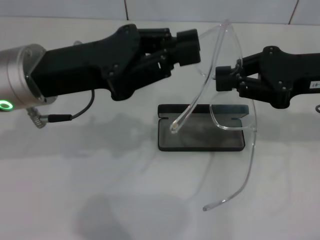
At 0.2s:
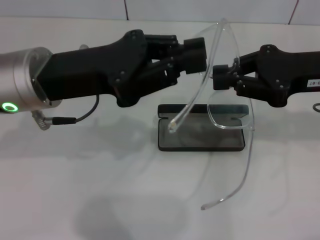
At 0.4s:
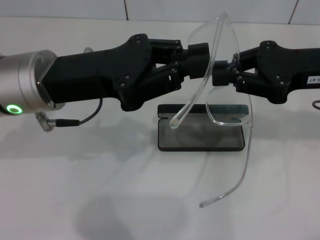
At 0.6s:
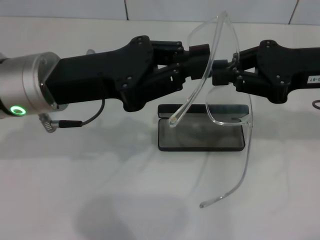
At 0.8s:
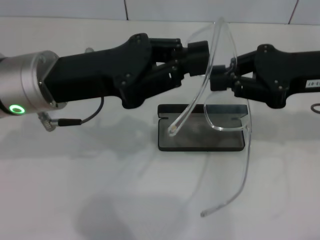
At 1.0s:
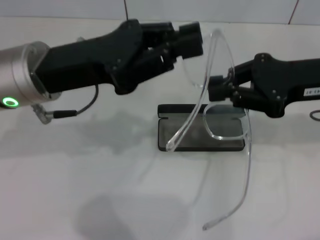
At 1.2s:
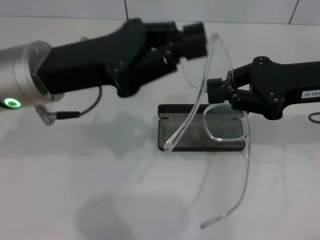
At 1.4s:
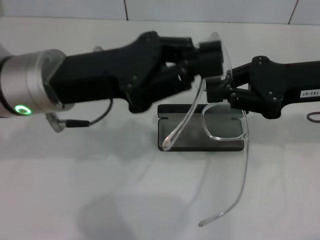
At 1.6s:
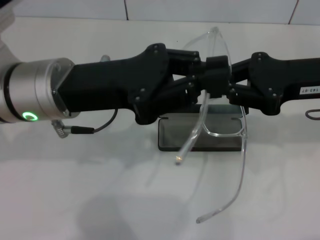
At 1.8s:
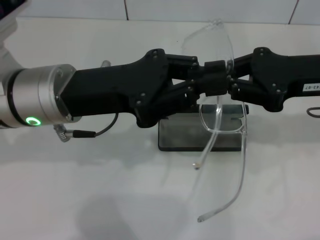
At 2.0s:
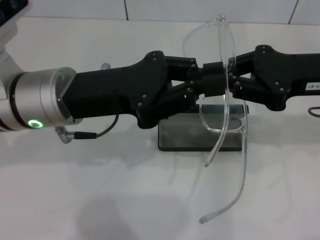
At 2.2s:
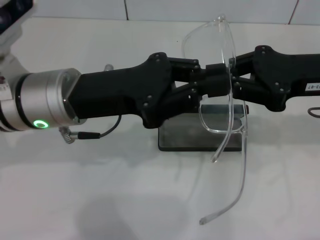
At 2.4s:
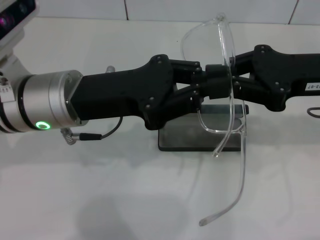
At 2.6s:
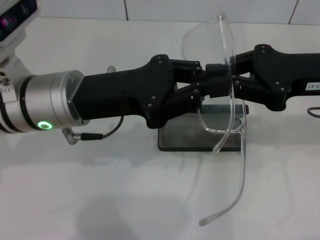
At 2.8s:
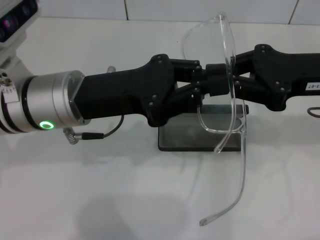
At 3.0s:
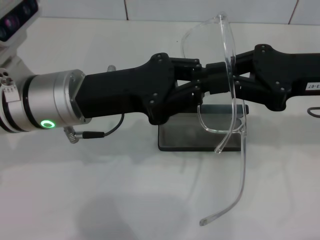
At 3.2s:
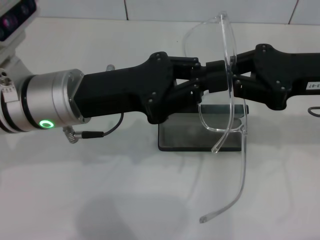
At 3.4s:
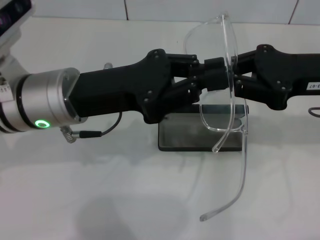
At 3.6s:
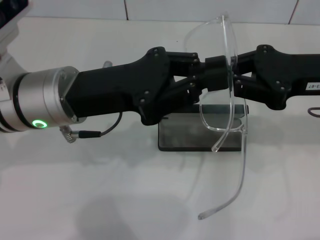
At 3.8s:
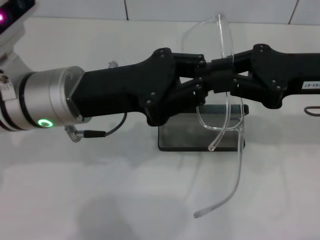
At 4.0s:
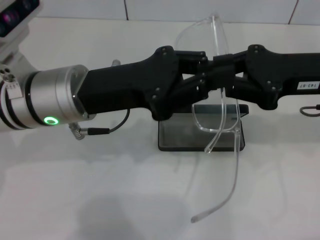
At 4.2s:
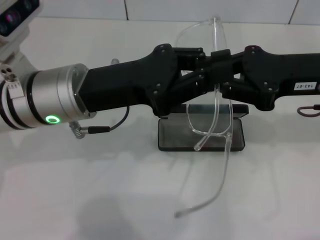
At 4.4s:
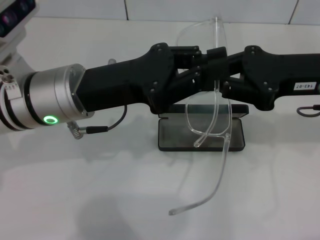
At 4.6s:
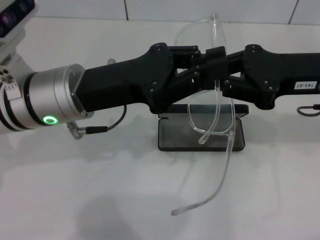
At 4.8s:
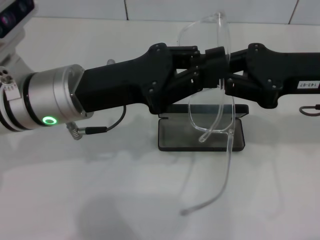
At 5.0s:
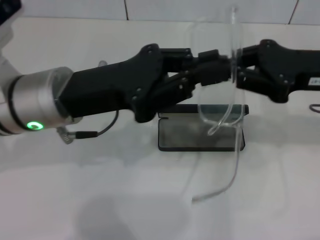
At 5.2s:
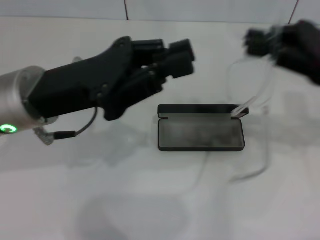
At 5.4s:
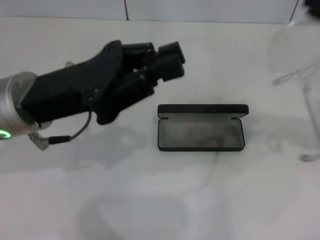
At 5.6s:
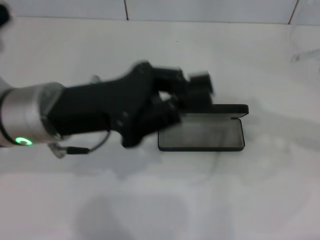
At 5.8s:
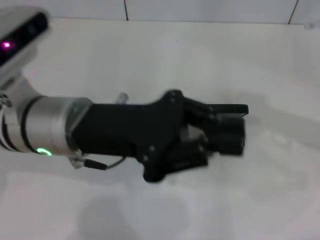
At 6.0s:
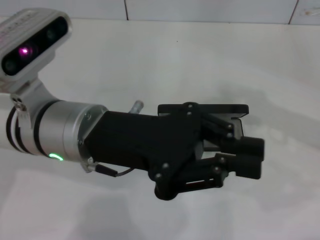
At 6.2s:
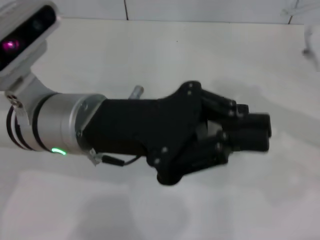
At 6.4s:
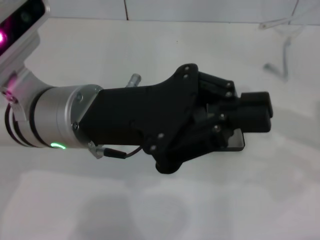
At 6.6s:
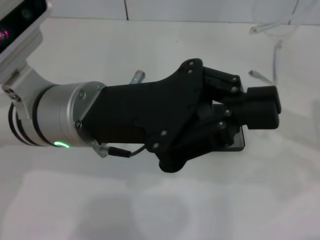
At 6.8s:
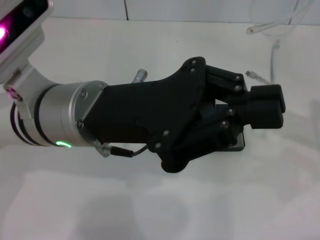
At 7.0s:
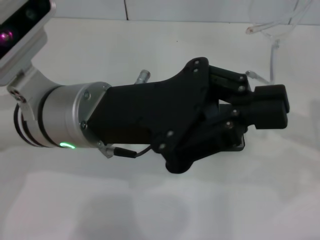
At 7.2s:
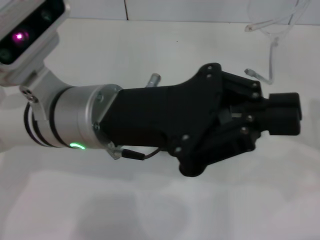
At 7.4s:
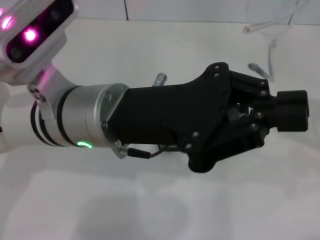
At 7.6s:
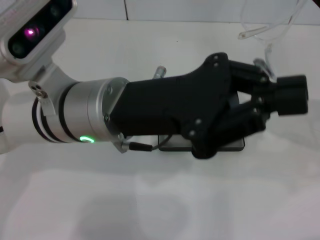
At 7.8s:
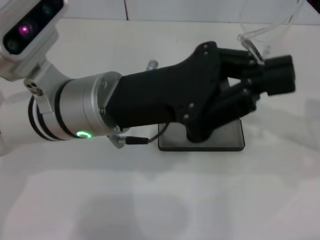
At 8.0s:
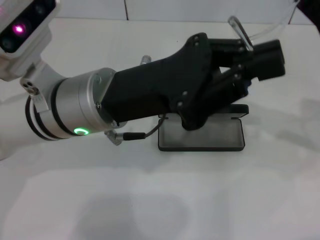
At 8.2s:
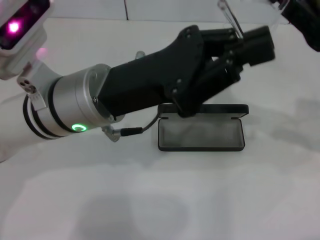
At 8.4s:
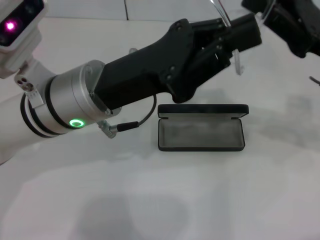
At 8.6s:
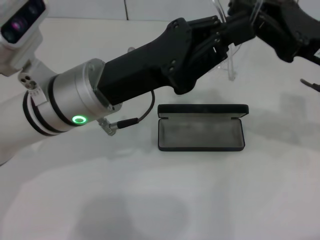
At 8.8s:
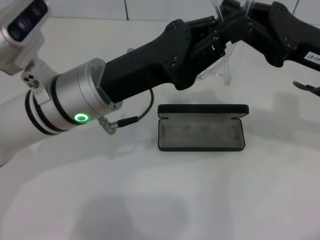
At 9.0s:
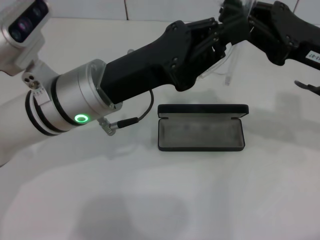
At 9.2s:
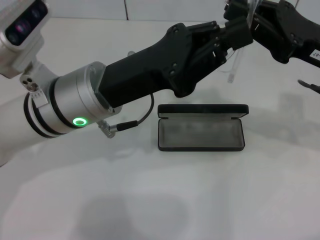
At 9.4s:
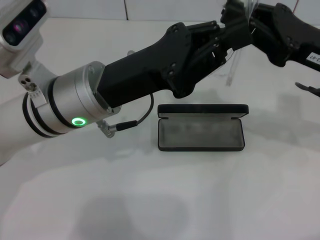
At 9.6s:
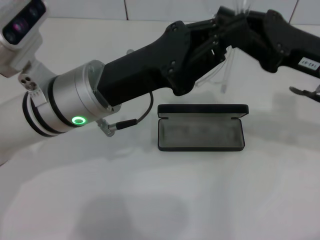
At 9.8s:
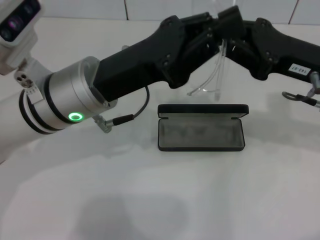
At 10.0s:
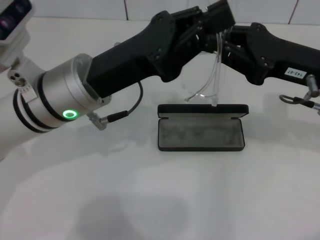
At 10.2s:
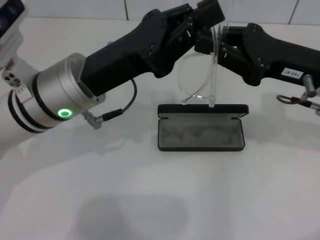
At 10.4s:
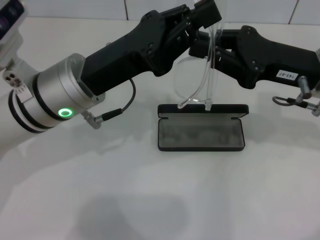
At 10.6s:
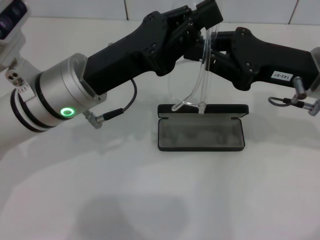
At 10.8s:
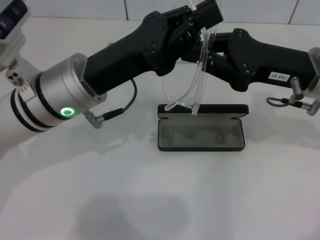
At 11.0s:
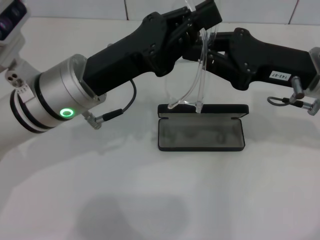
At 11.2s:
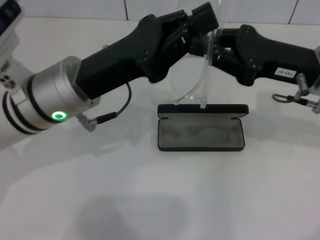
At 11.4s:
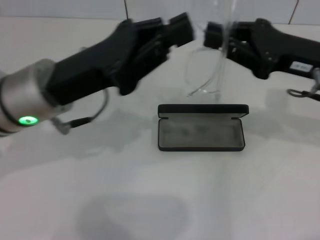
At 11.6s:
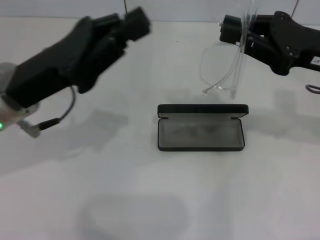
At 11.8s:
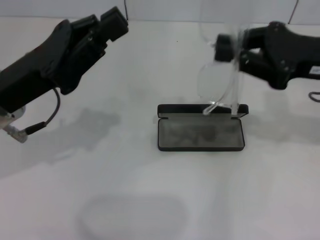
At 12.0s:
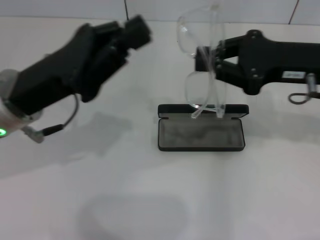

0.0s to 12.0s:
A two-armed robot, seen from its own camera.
1.6s to 3.0s: The grippers make only small movements.
3.0s to 4.4s: Both grippers stay about where they are.
4.4s to 6.0s: The right gripper goes roughly 10 cm to the right.
10.4s to 12.0s: The left gripper travels to the left by approximately 5 cm.

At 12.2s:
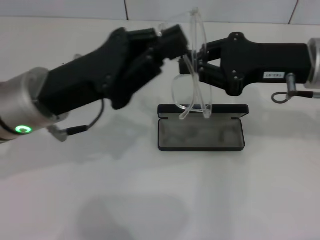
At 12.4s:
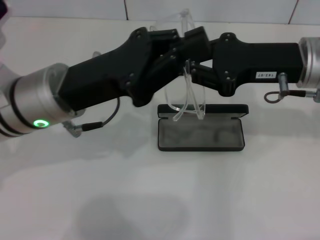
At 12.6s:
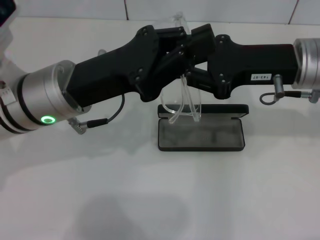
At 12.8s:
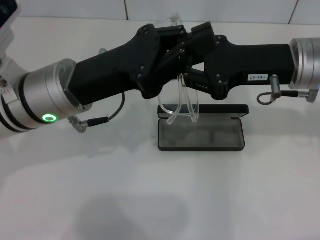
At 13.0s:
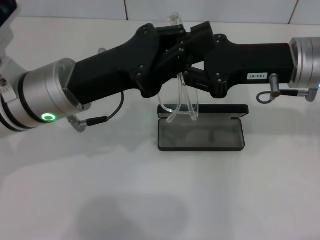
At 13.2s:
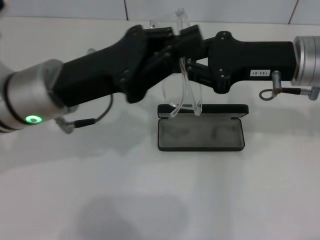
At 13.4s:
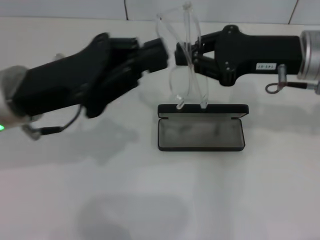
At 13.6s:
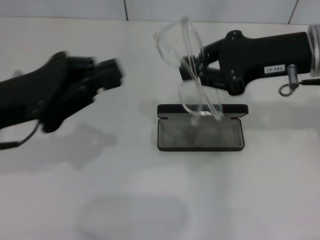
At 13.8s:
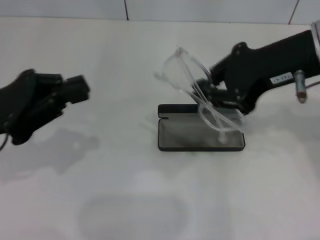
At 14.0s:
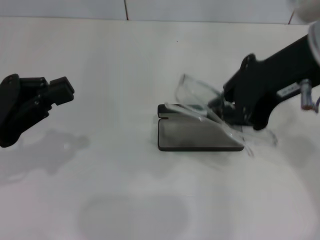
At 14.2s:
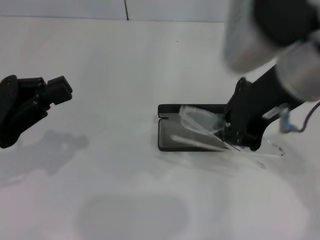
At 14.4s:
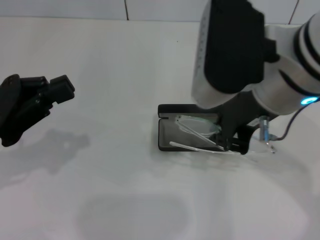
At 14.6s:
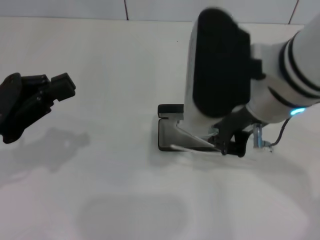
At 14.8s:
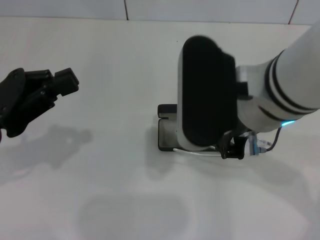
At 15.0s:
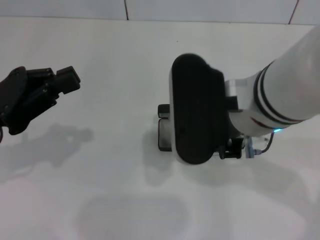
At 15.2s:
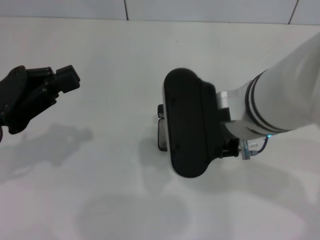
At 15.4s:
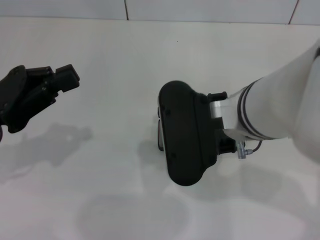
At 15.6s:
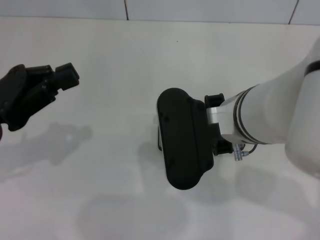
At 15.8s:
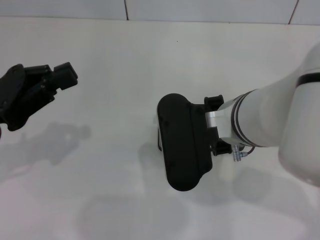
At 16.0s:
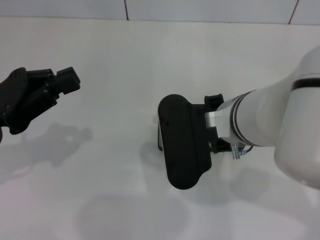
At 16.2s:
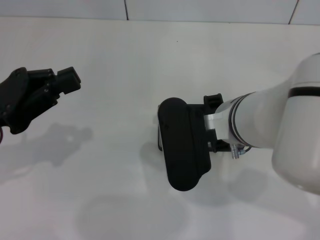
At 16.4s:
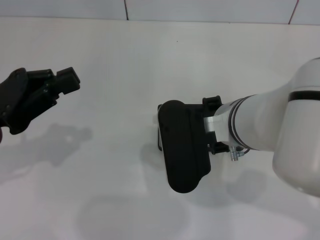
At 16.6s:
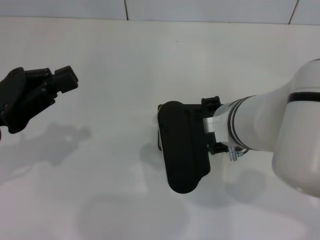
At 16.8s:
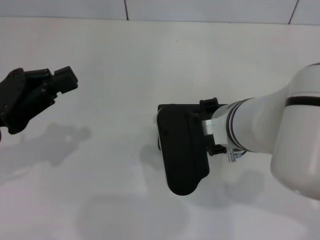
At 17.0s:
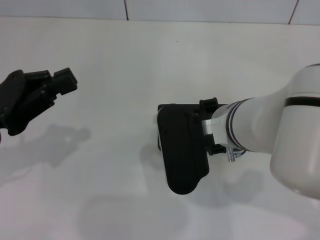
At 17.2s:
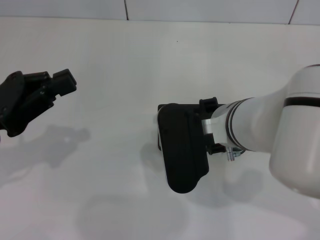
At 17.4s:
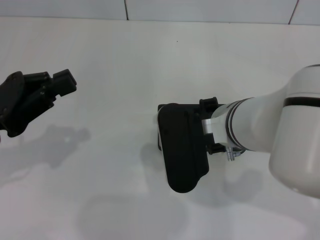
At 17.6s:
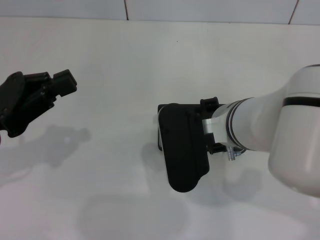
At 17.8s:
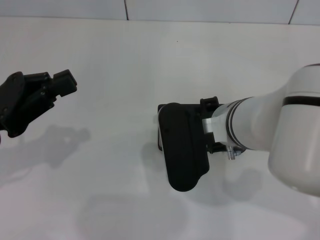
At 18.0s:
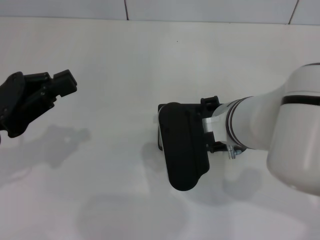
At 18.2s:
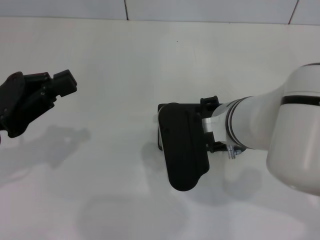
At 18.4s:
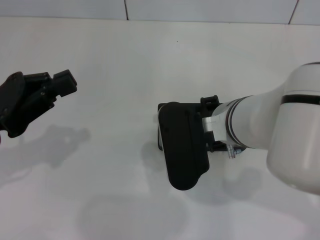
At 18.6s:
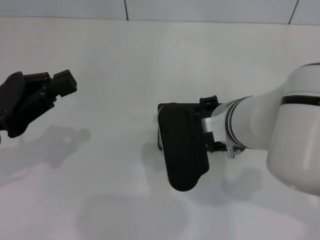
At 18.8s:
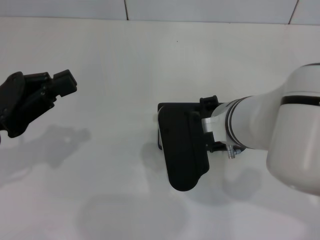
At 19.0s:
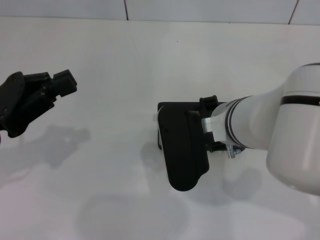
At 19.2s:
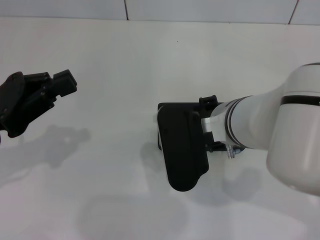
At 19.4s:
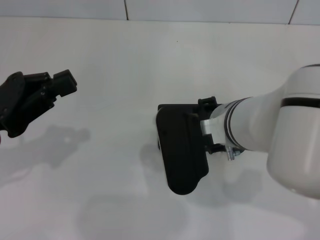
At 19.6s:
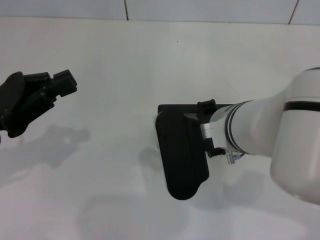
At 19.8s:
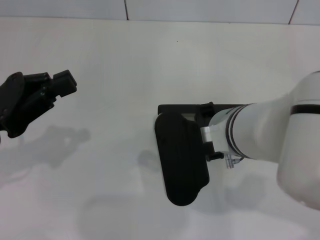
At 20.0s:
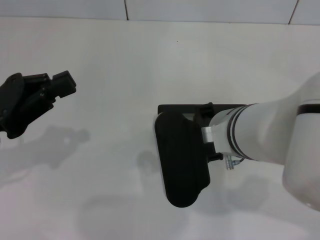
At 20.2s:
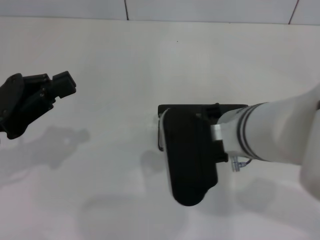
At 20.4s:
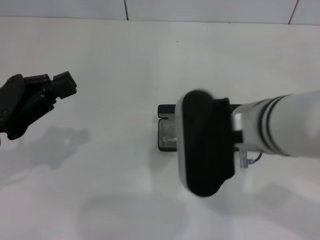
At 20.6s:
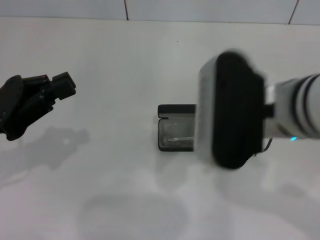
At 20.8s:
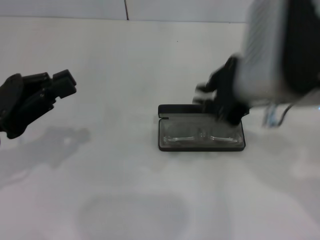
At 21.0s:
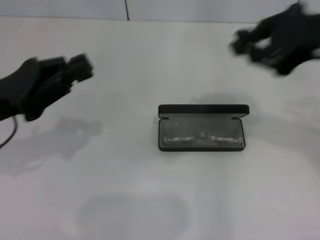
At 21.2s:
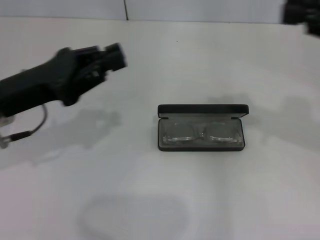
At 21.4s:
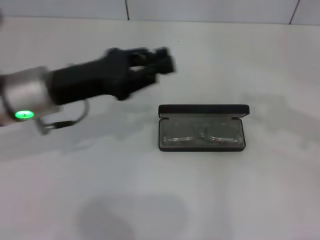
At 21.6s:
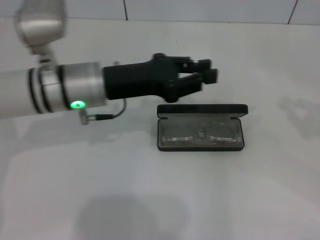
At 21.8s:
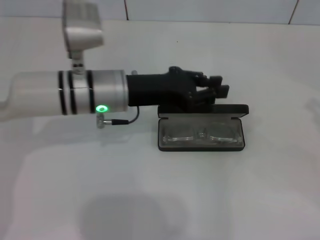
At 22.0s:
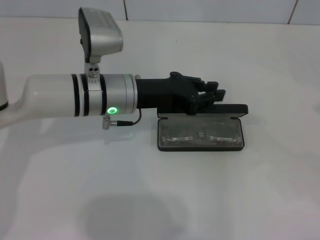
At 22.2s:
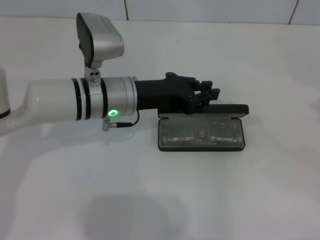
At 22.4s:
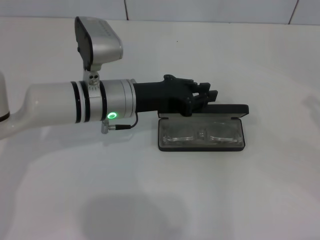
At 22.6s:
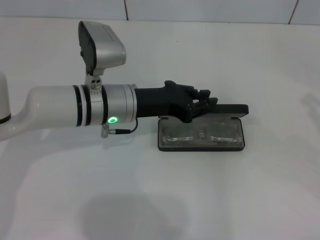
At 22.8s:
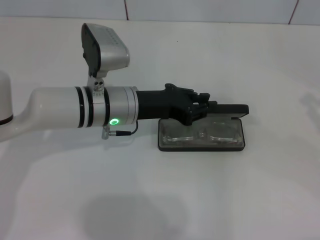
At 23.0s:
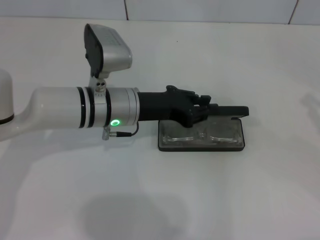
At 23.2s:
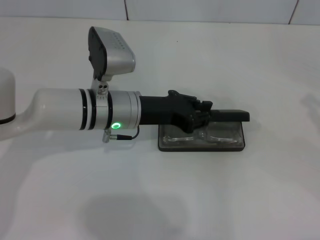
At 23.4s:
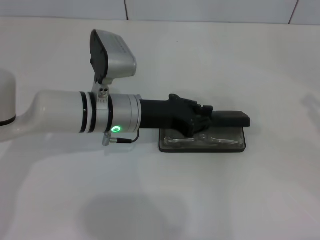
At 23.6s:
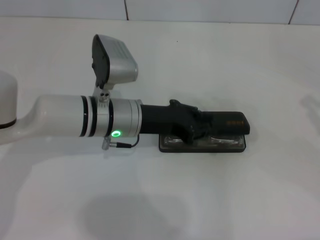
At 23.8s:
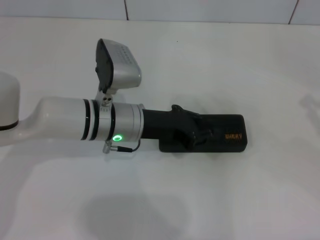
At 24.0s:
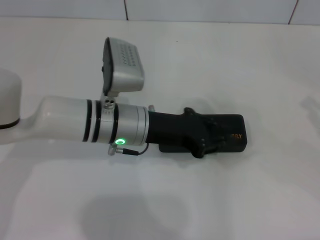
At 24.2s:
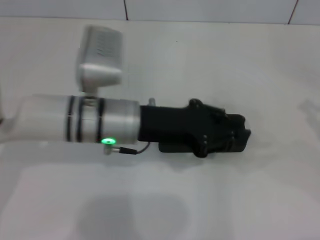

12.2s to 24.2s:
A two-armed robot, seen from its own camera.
Step, 13.0s to 19.6s: Put the glasses into the case with your right hand.
Step, 19.8s to 23.6s: Close the glasses case with your left hand.
12.2s to 13.8s: The left gripper is displaced to the left by roughly 10 cm, while the right gripper moves upward, roughly 5 cm.
13.8s to 15.2s: The right gripper heads to the left, backward and downward, covering some 15 cm.
15.2s to 16.6s: The right gripper shifts by roughly 5 cm.
16.6s to 18.2s: The two grippers keep their place.
18.2s to 19.8s: The grippers stay close to where they were, moving slightly.
19.8s to 21.2s: The right gripper heads to the right and upward, covering some 25 cm; the left gripper heads to the right, covering roughly 5 cm.
21.2s to 22.6s: The left gripper travels to the right, forward and downward by roughly 15 cm, while the right gripper travels downward and to the right by some 20 cm.
22.6s to 24.2s: The left gripper ends up about 5 cm from where it was.
